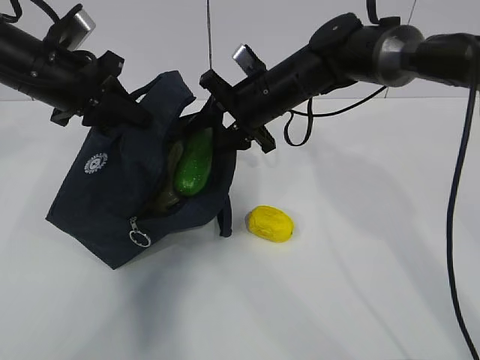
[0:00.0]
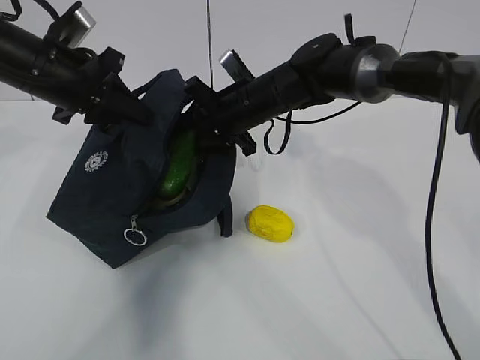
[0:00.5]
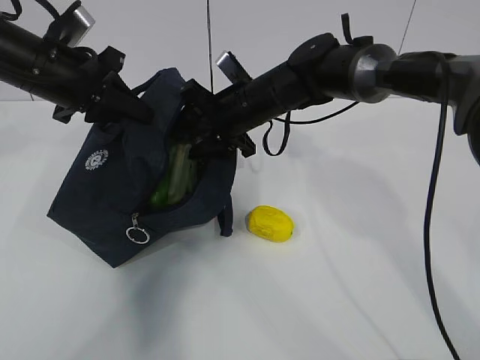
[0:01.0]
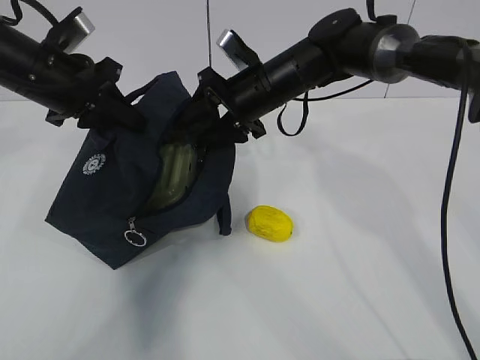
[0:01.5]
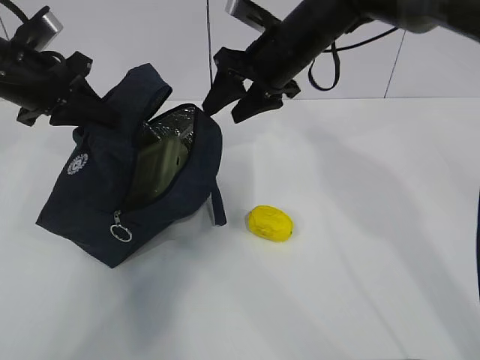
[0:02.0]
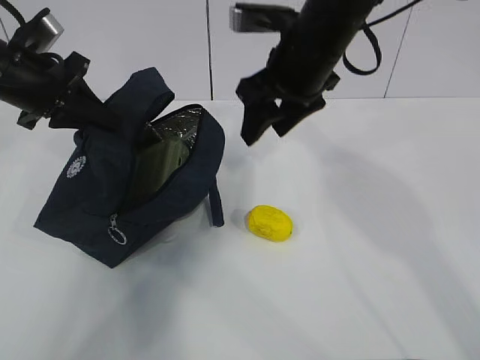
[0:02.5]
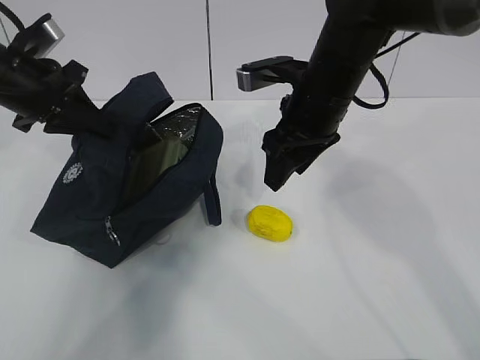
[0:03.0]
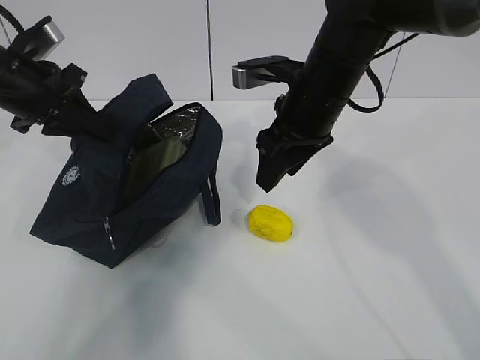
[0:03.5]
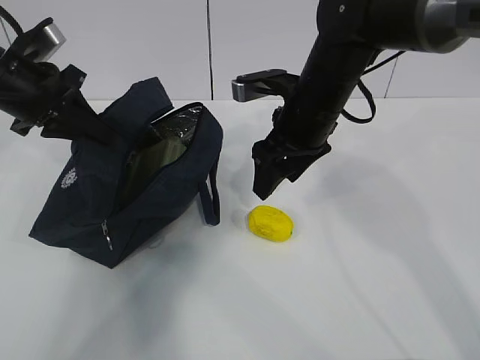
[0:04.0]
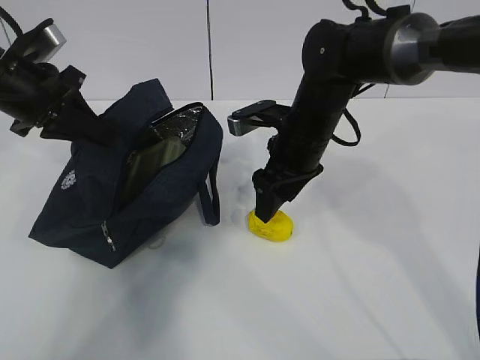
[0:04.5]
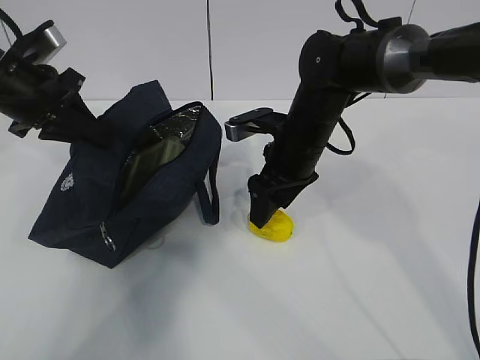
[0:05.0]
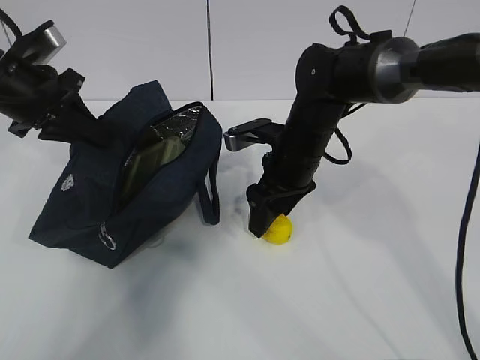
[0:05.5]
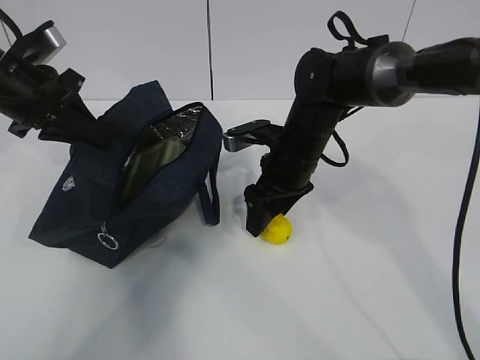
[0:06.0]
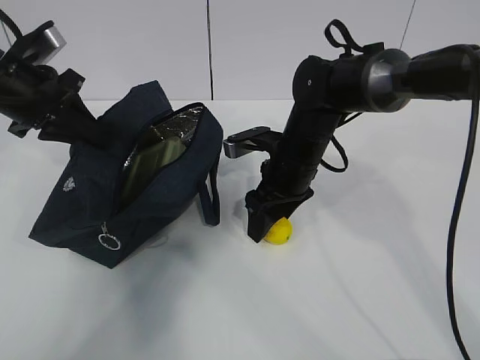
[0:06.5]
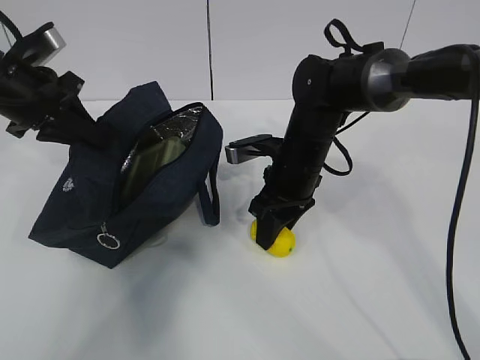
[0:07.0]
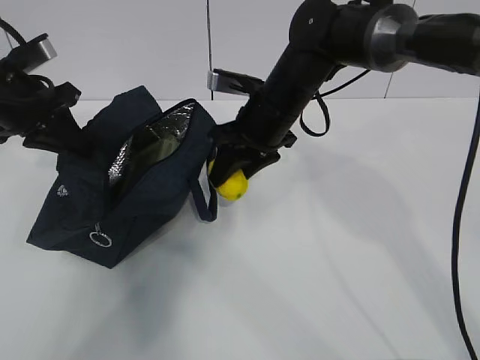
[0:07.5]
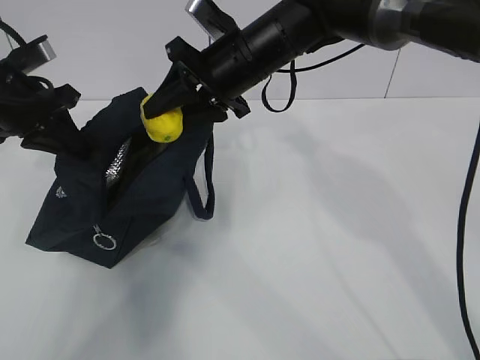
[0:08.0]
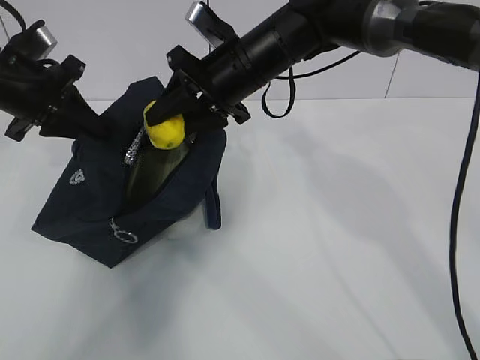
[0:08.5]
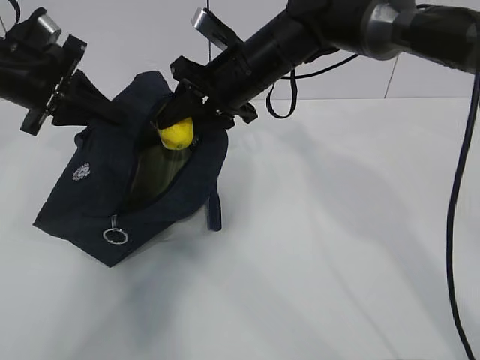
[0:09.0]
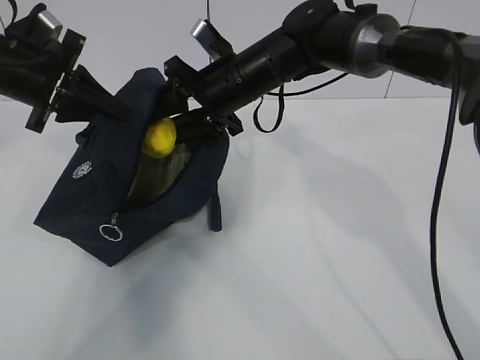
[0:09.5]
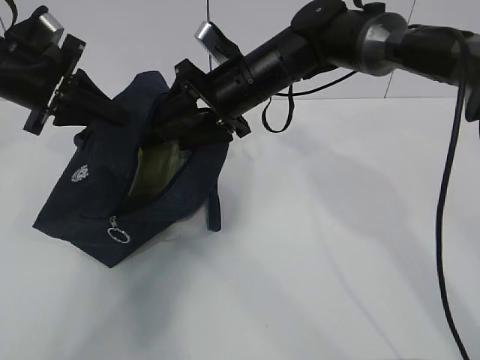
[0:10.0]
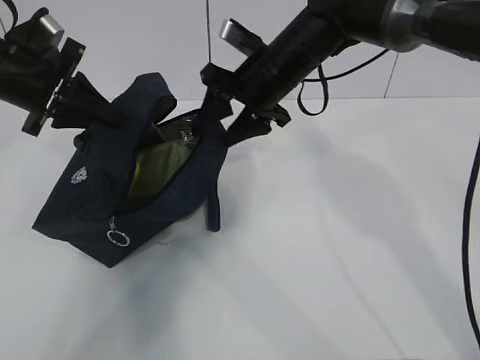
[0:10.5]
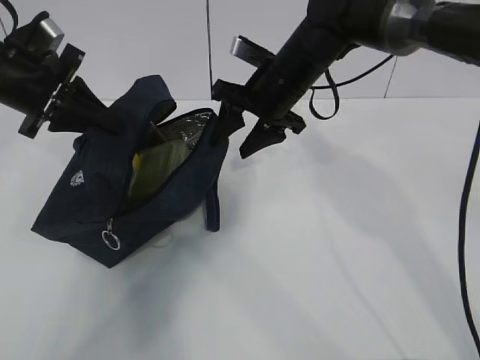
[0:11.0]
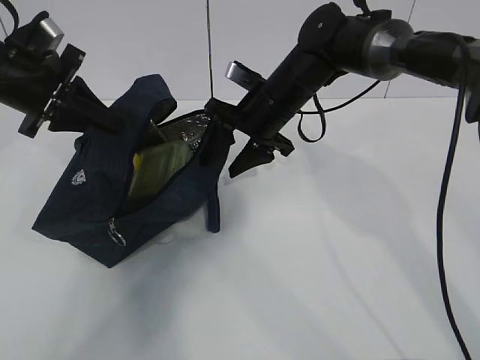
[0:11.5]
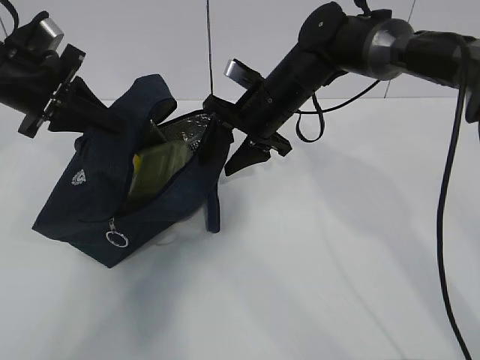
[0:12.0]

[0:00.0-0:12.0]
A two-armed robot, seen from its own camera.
Step, 1.0 to 4.0 s: Secure the lunch bag with your left hand.
Step, 4.5 to 5.0 s: Grab the lunch bag with your right hand.
Step, 5.5 to 8.0 s: Move the lunch bag to the right.
0.0 to 2.0 s: The right gripper travels upward by some 5 cm.
2.0 to 4.0 s: The right gripper heads backward, covering about 5 cm.
4.0 to 6.0 s: The right gripper travels downward by about 10 cm.
6.0 to 8.0 s: The right gripper goes approximately 15 cm upward and to the left, and closes.

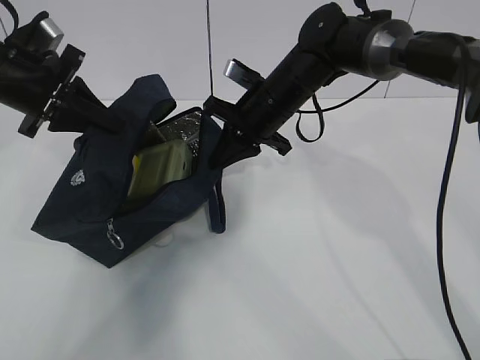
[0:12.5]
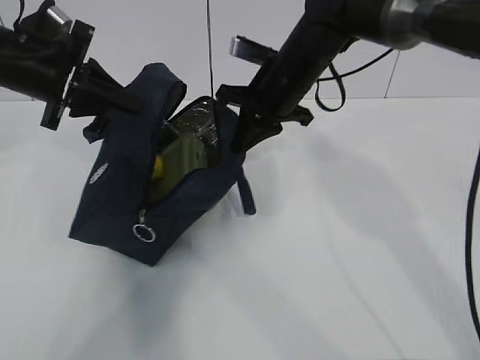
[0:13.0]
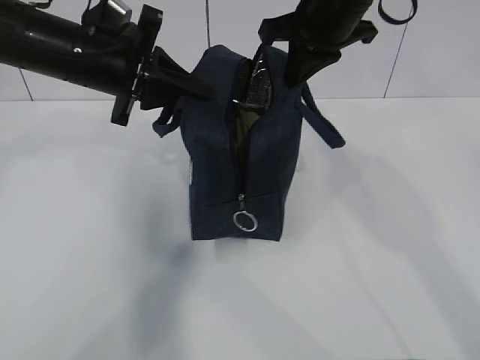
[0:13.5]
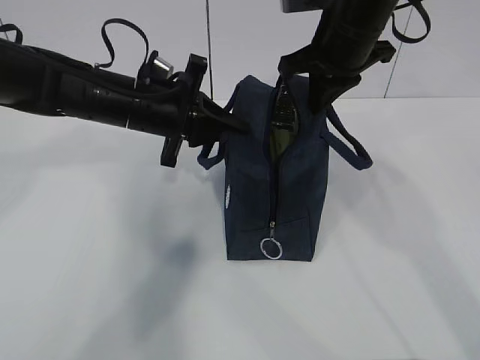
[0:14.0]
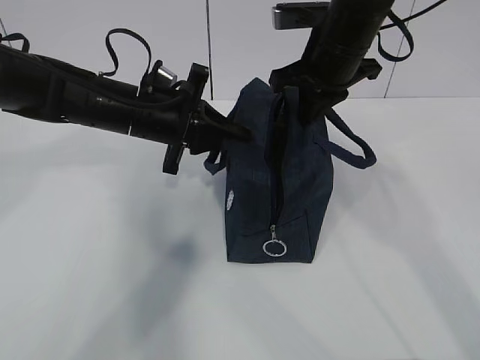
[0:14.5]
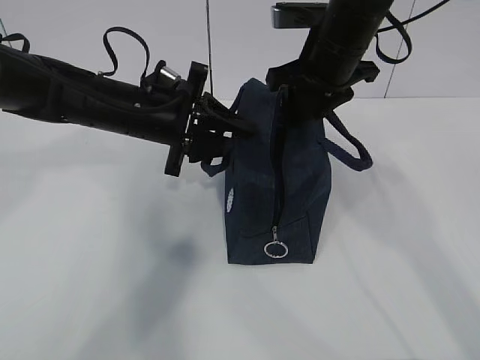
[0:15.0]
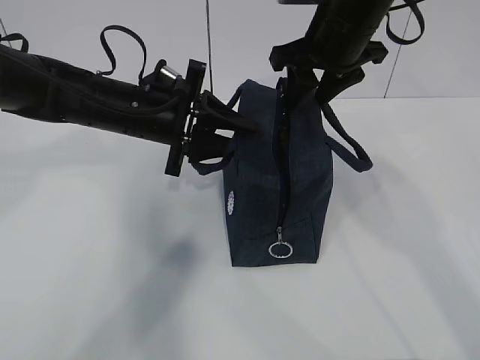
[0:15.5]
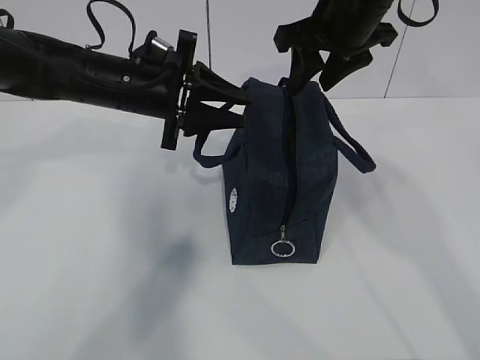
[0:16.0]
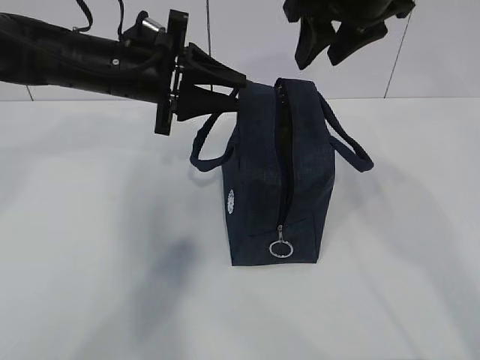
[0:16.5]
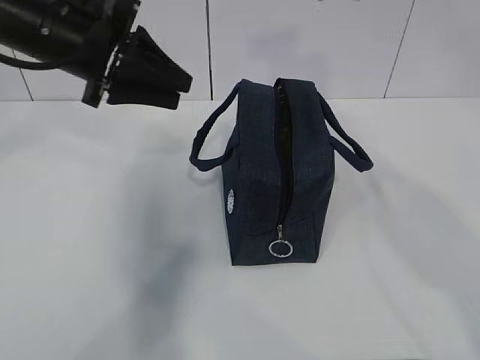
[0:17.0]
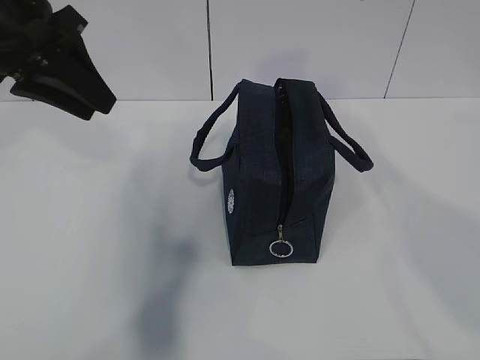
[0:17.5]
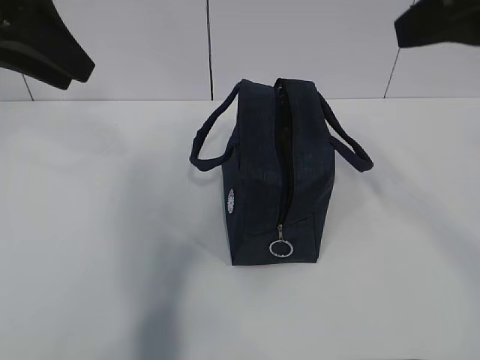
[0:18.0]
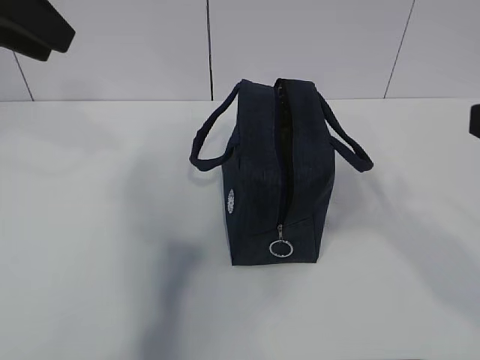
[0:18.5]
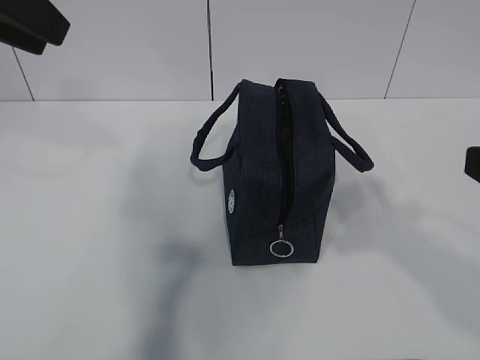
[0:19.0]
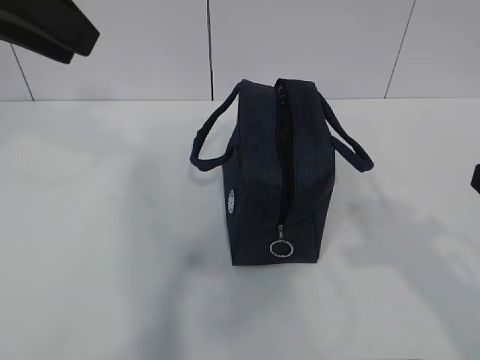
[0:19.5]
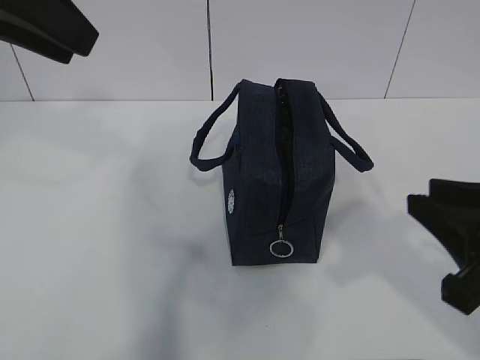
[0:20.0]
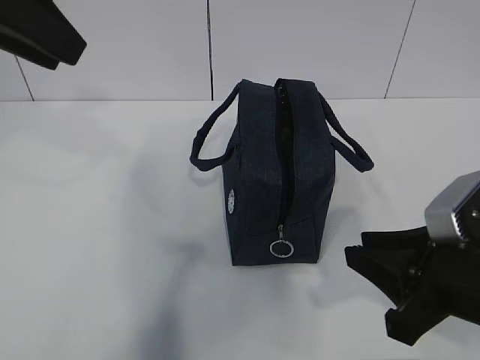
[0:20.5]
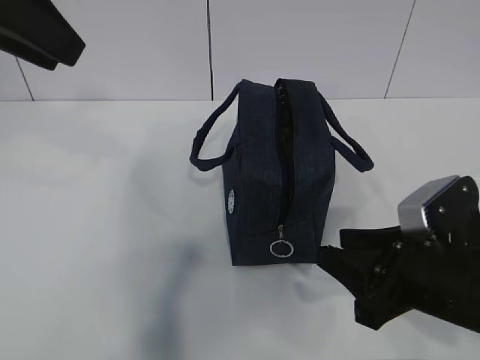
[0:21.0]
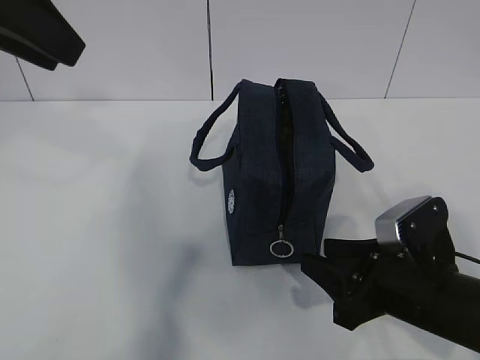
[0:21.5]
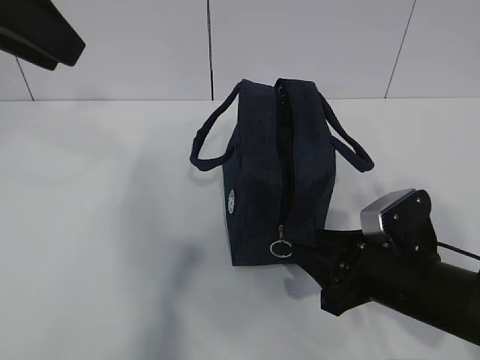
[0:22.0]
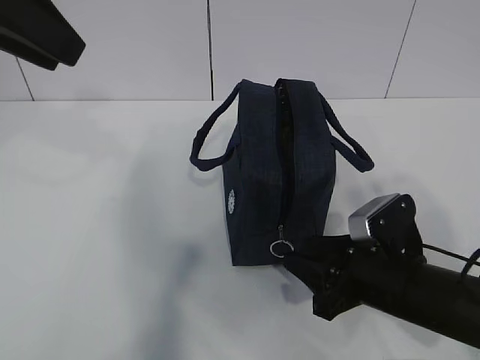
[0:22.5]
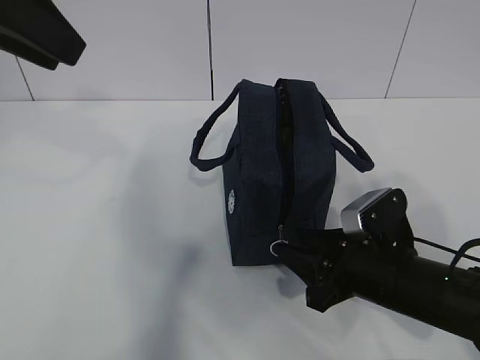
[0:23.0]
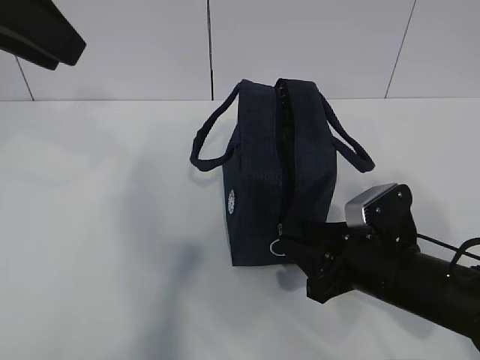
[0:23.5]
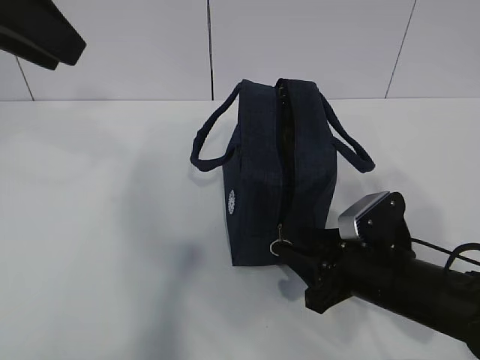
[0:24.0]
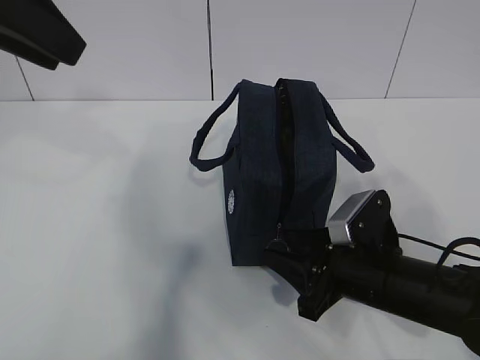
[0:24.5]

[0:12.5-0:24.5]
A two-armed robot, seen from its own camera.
12.5 to 14.5 s: The right gripper goes about 10 cm upward and to the right; the left gripper heads to the right and downward, covering approximately 15 cm.
14.5 to 16.5 s: The right gripper goes roughly 10 cm upward, and opens up. The left gripper shifts by some 5 cm, and opens.
16.5 to 18.5 s: The right gripper goes some 25 cm backward; the left gripper travels upward, backward and to the left by roughly 20 cm.
18.5 to 20.5 s: The right gripper heads downward, covering approximately 15 cm.
20.5 to 22.5 s: The right gripper heads downward and forward, covering about 10 cm.
22.5 to 24.5 s: There are only small adjustments of the grippers.

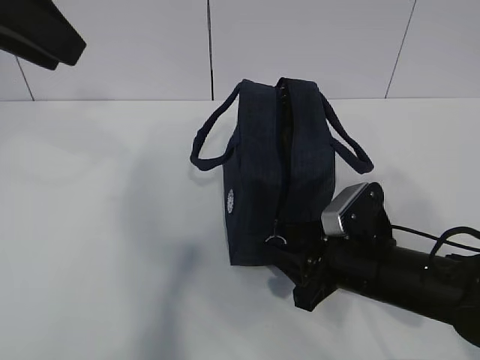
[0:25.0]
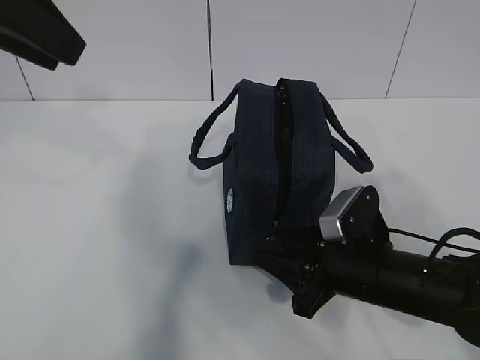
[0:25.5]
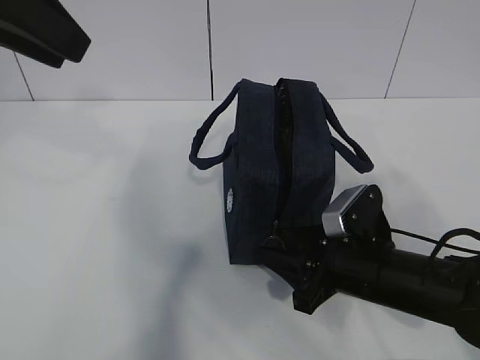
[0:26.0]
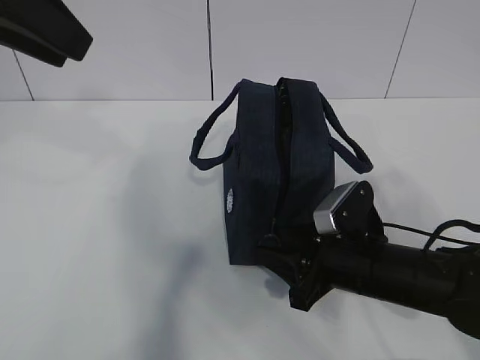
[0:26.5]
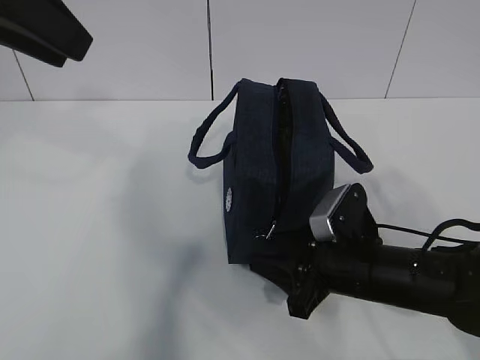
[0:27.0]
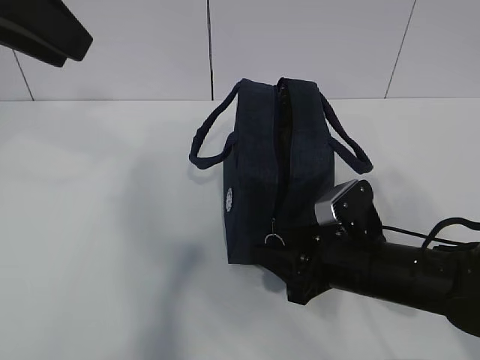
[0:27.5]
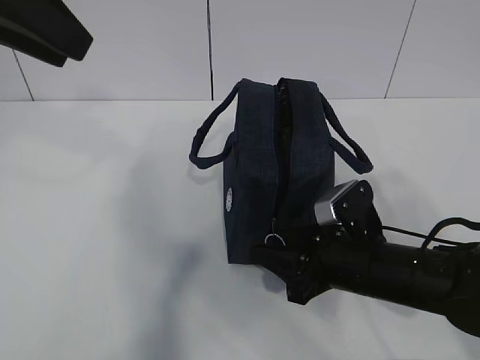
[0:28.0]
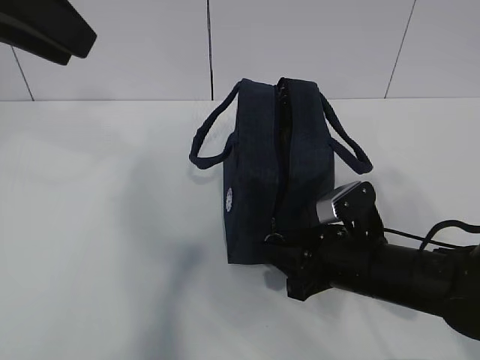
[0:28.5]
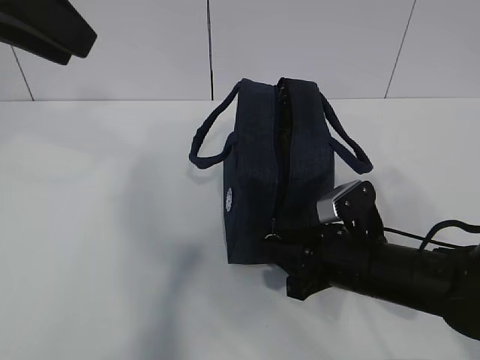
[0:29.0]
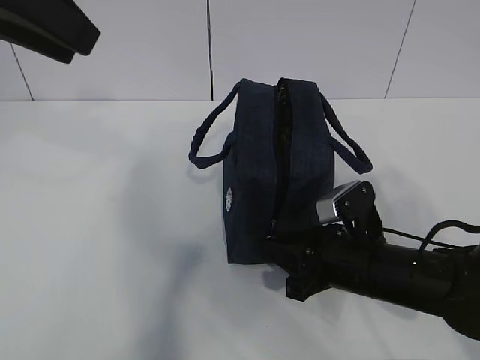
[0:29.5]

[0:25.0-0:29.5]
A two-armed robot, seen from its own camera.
25.0 to 27.0 s: The grippers stay close to where they were, moving slightly.
27.0 to 29.5 s: The right gripper closes its fingers.
